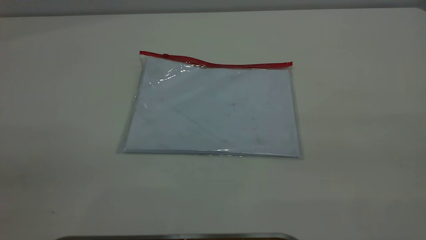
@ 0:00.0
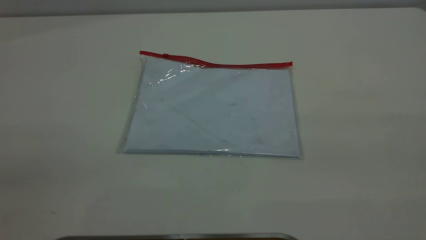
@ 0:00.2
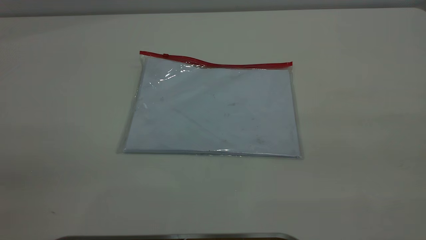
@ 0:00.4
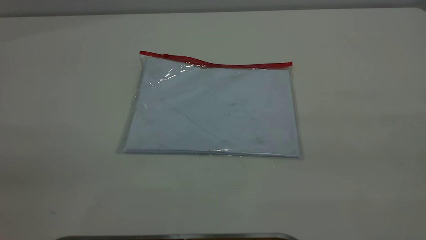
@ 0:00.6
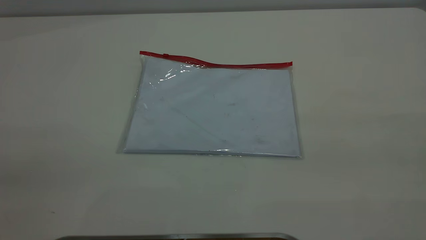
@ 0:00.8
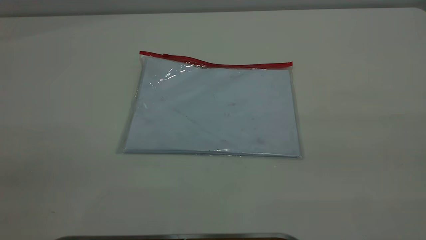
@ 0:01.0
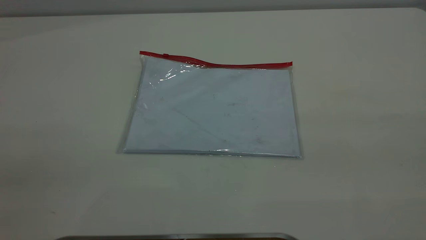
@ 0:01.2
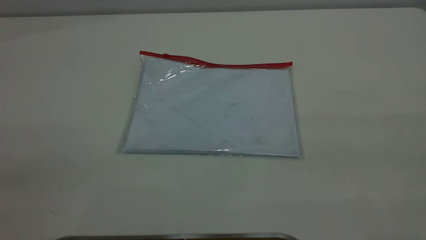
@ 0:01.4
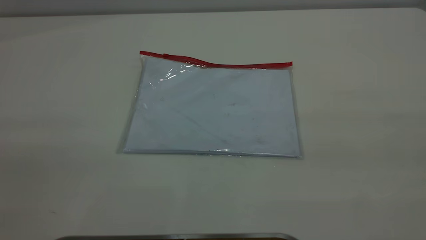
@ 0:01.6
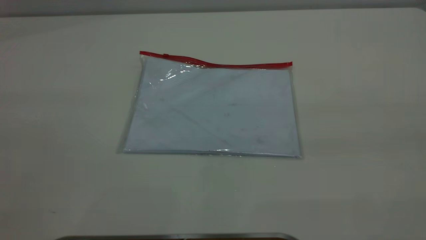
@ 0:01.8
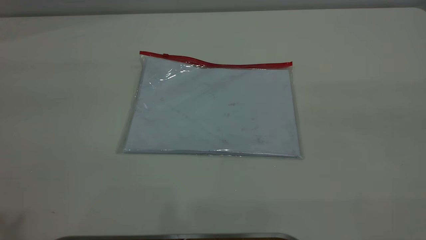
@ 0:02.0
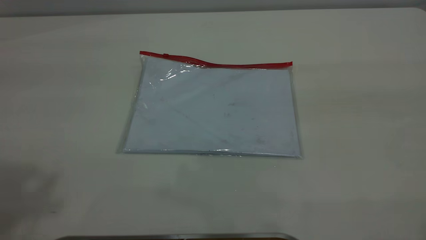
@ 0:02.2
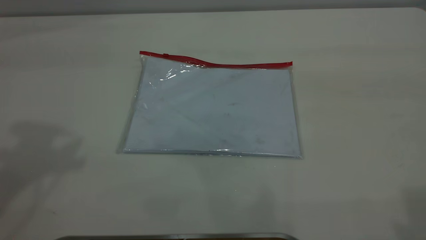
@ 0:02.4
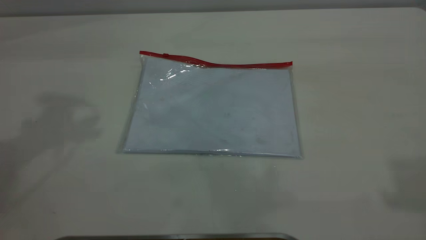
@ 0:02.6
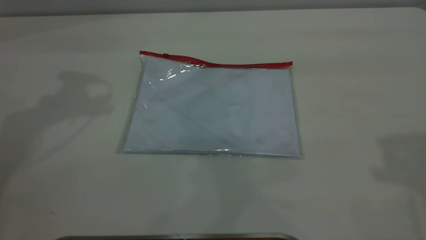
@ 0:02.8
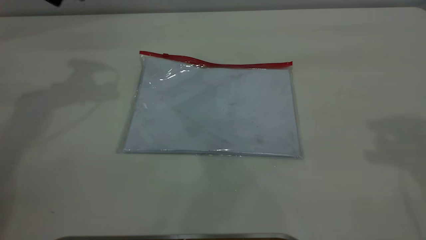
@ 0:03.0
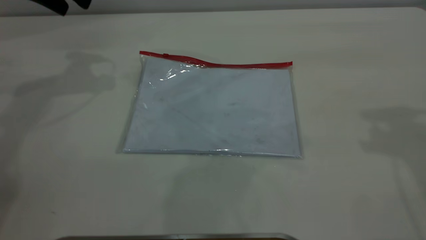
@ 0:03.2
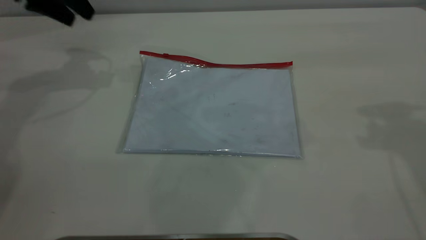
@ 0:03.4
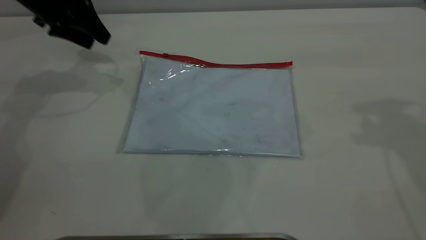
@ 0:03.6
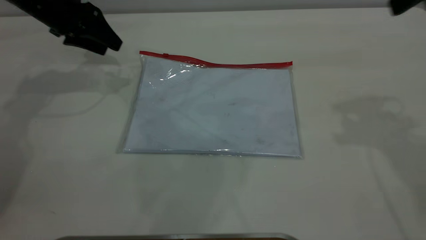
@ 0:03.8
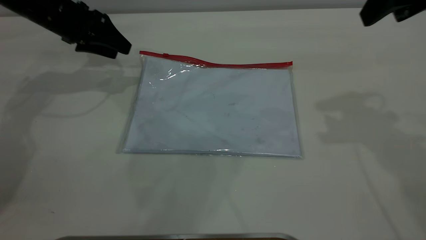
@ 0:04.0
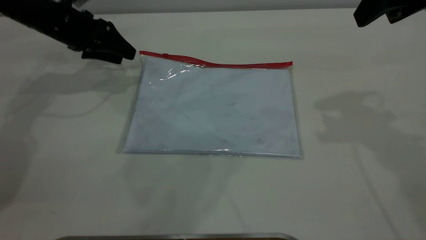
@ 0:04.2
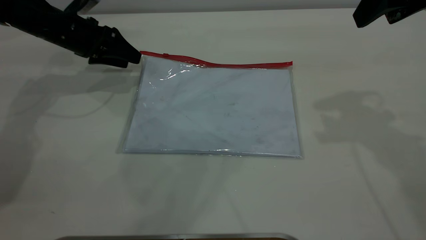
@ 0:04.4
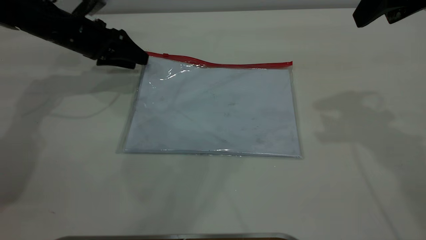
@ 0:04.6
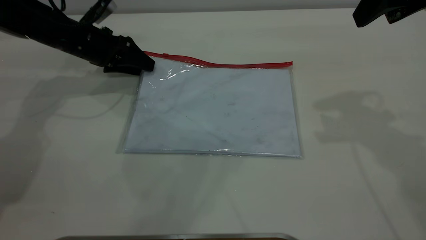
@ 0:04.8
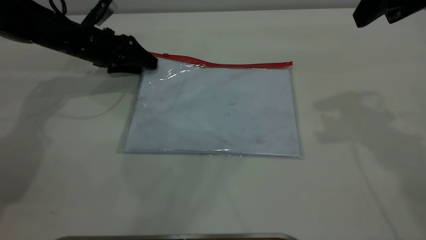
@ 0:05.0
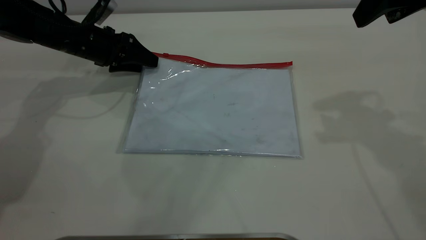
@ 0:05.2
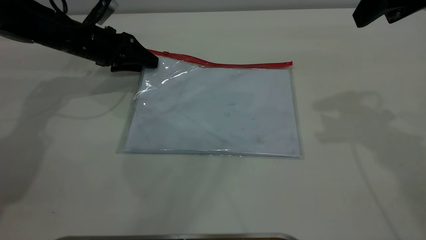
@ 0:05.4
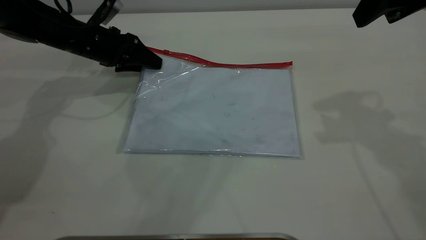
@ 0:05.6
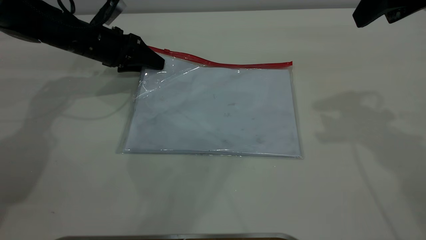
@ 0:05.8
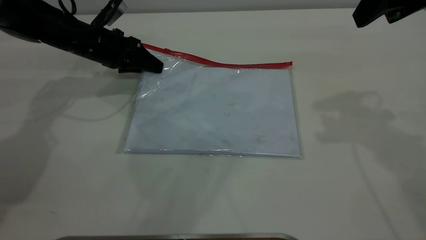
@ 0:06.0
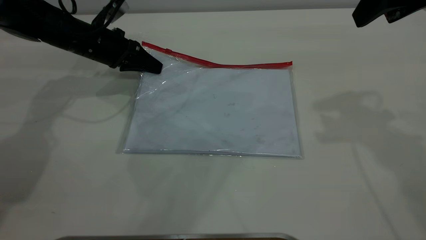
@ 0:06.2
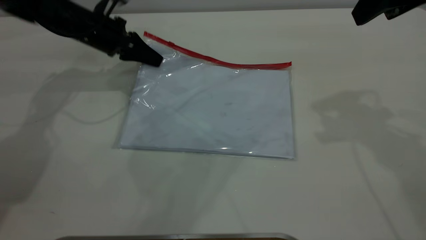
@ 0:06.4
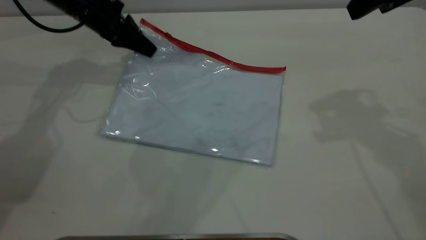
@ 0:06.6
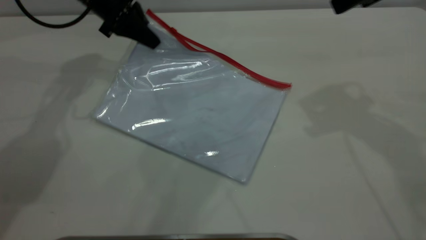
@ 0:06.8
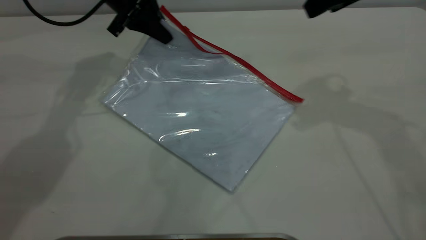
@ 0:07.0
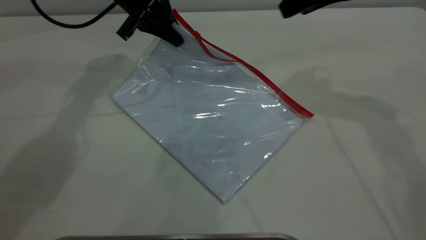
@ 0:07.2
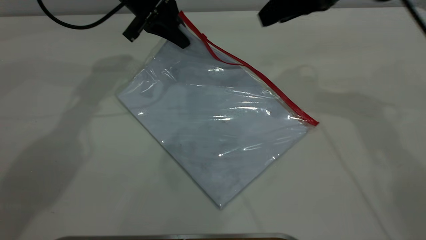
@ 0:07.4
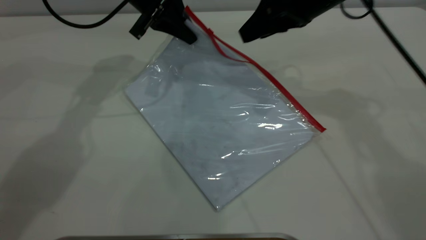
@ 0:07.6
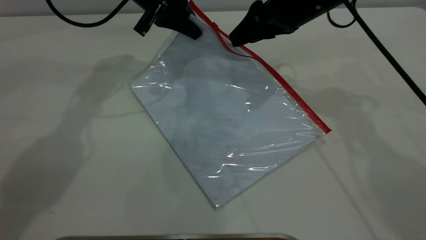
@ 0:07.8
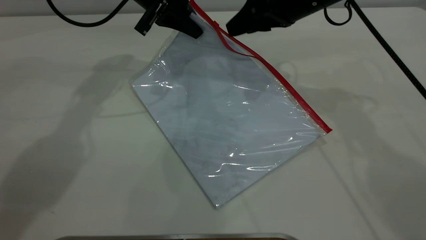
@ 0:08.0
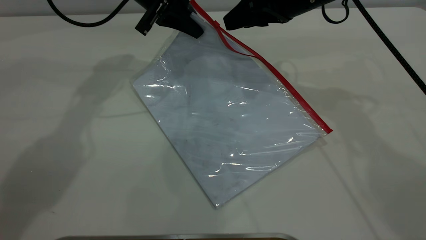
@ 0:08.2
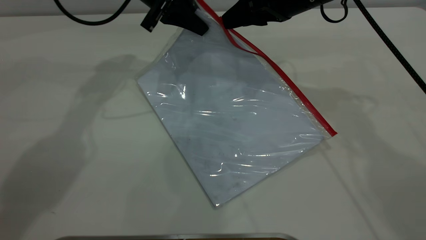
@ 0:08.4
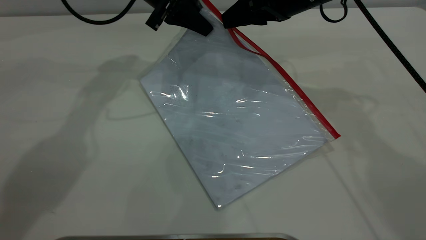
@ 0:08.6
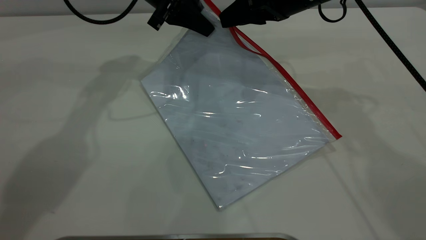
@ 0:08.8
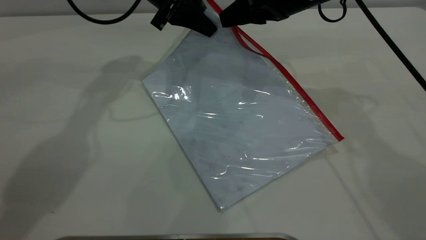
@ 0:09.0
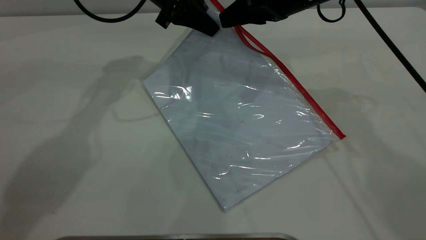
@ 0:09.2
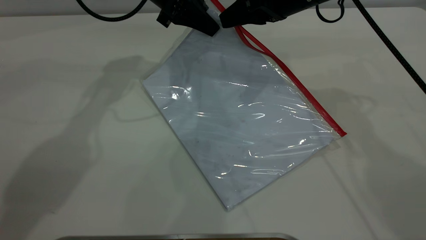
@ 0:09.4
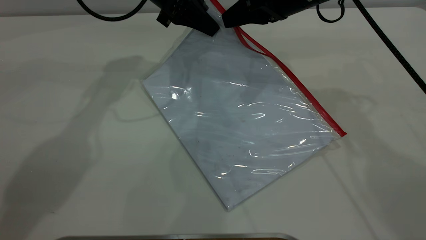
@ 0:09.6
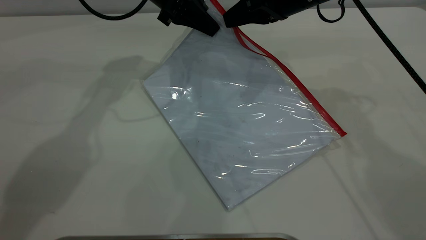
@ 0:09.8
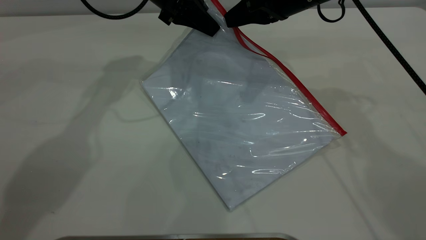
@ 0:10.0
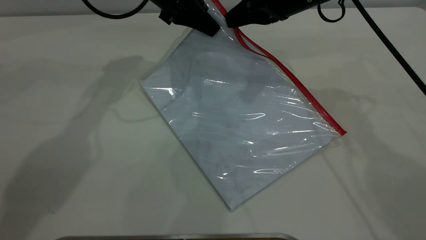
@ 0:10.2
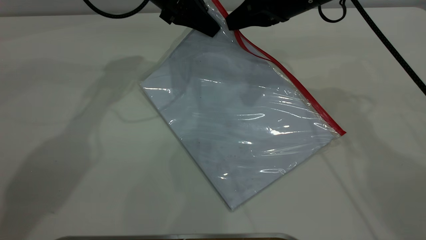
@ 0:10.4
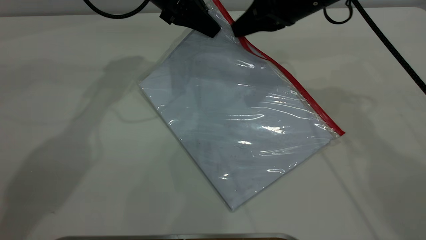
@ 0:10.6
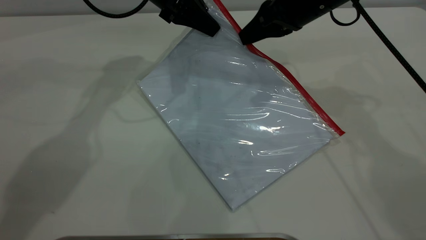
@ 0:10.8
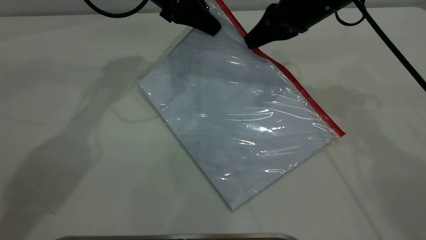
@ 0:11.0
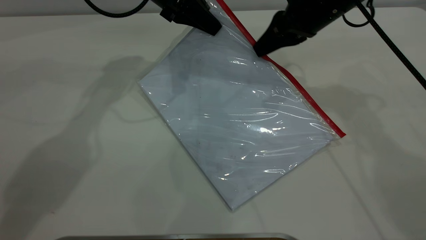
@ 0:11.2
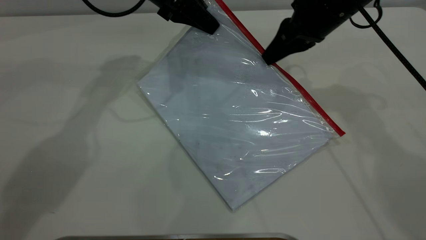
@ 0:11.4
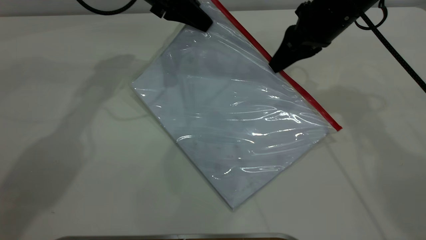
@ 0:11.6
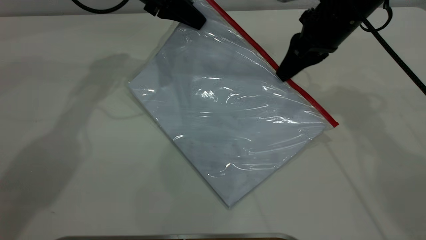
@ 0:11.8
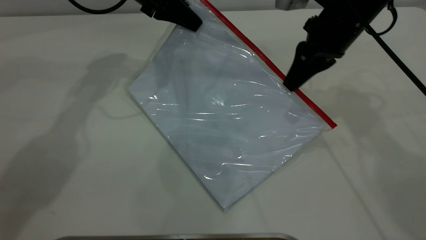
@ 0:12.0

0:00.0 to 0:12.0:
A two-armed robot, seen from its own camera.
Step, 0:00.0 to 0:06.6: Pick up the transparent plastic bag with the left gripper.
0:03.0 to 0:04.4: The left gripper travels downward by about 20 cm. Meanwhile the right gripper goes roughly 10 cm downward and forward.
0:04.4 to 0:06.0: The left gripper closes up.
0:06.0 to 0:07.6: The left gripper shifts about 15 cm upward and to the right, while the right gripper moves downward, to the left and forward, approximately 15 cm.
0:07.6 to 0:09.0: The grippers stay close to where they were, moving slightly.
0:09.0 to 0:10.4: The right gripper closes.
0:10.4 to 0:12.0: The right gripper moves some 5 cm.

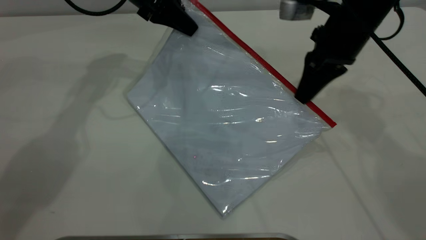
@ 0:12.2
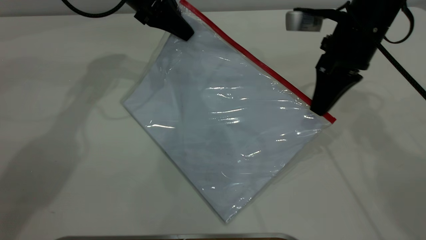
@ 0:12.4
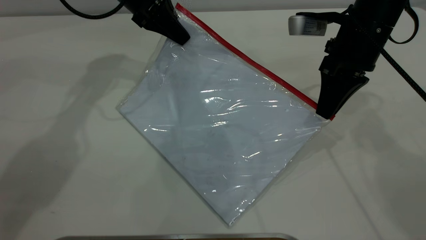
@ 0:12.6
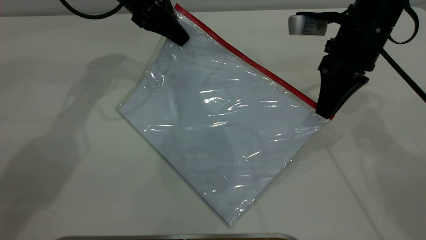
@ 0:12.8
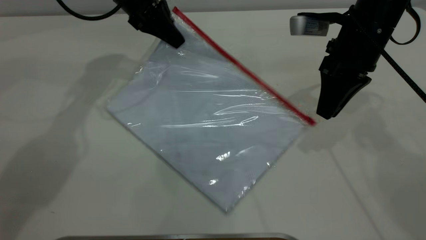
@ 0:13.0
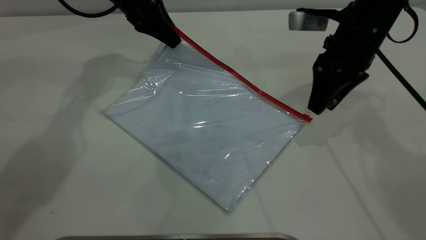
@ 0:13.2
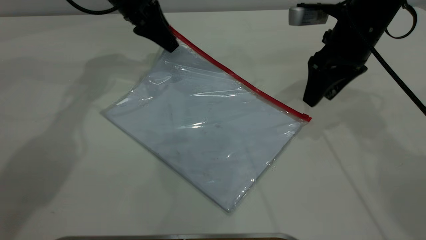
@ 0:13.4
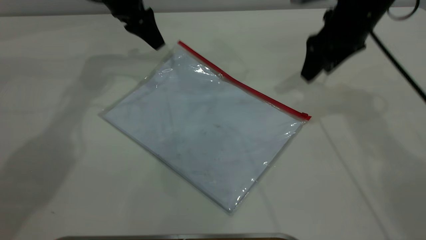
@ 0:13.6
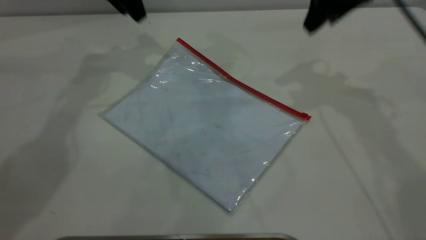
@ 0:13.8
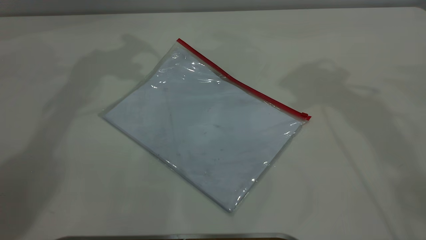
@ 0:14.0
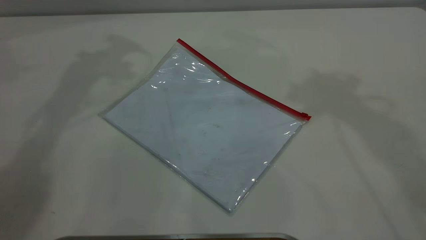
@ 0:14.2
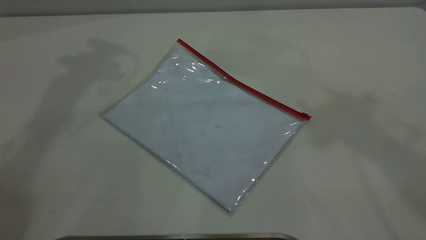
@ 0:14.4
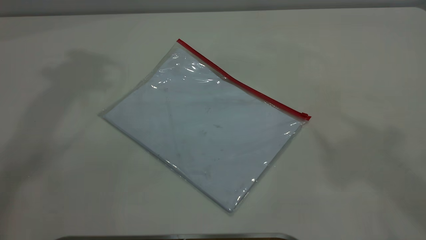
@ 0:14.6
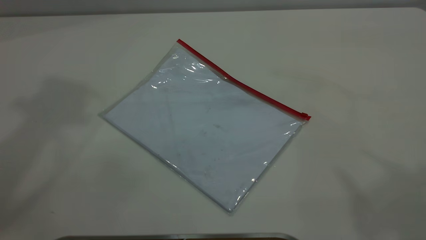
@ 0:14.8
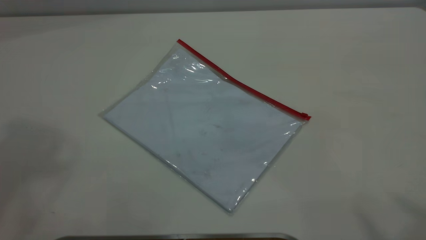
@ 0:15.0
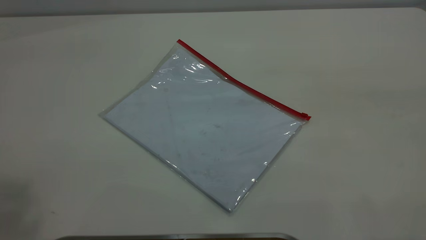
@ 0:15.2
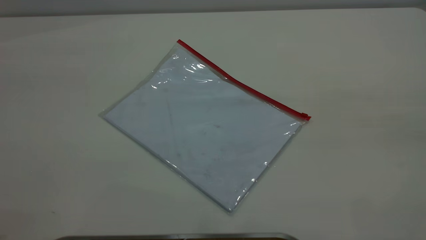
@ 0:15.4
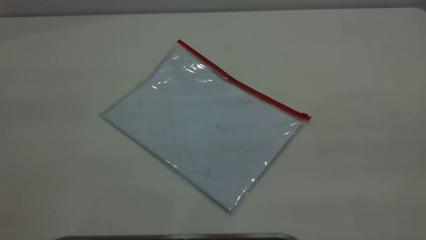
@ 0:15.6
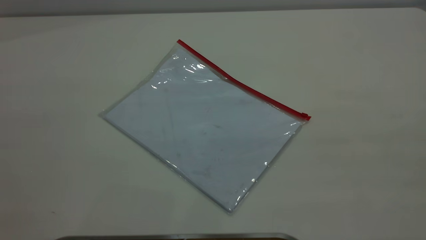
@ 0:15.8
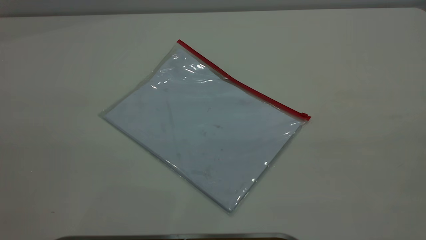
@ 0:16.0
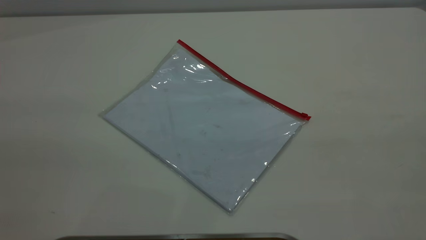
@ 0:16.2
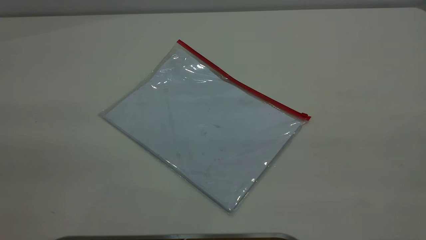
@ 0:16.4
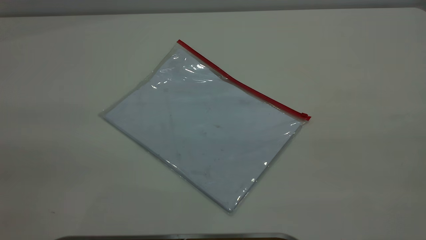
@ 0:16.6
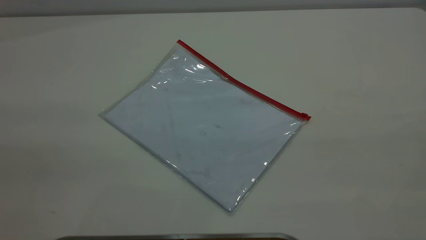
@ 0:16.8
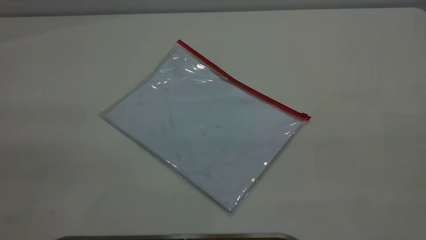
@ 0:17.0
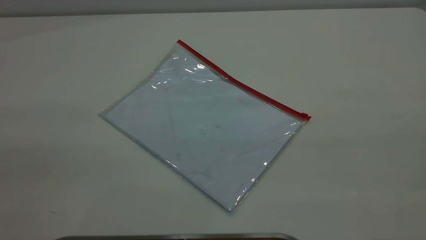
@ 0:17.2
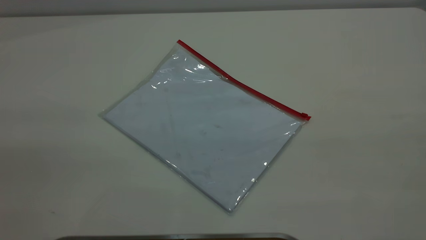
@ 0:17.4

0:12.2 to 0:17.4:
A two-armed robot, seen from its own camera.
Step, 0:13.2 to 0:13.8: Place the transparent plastic bag.
0:12.2 to 0:14.0: The right gripper moves upward, roughly 20 cm, and opens up. Meanwhile the left gripper heads upward and to the left, covering about 15 cm, and opens up.
